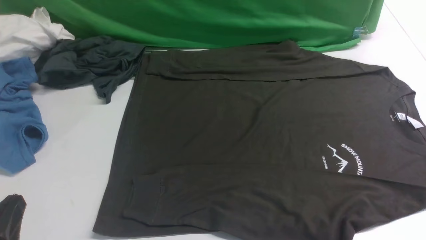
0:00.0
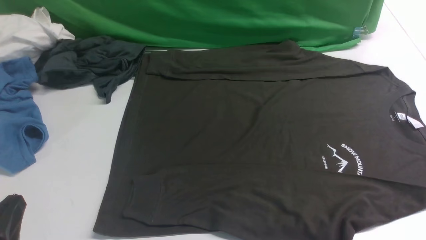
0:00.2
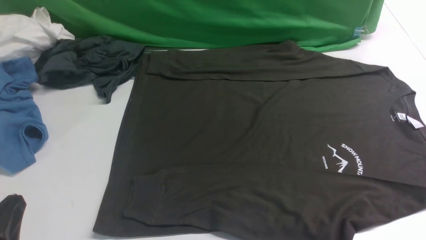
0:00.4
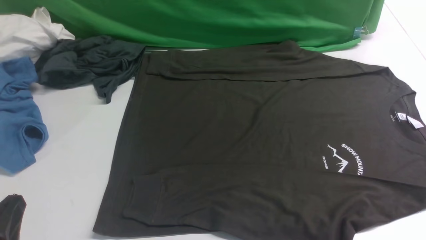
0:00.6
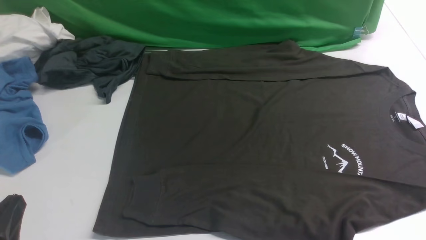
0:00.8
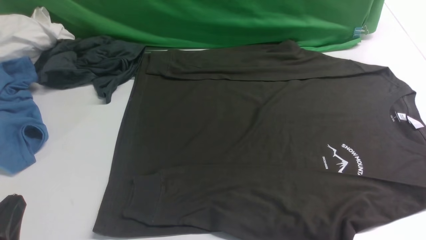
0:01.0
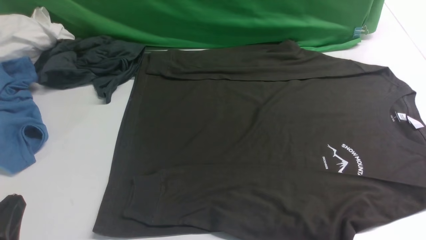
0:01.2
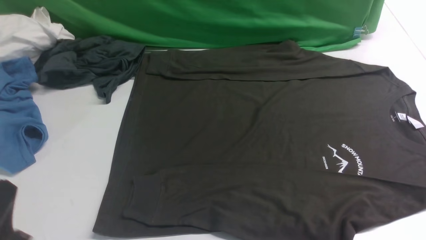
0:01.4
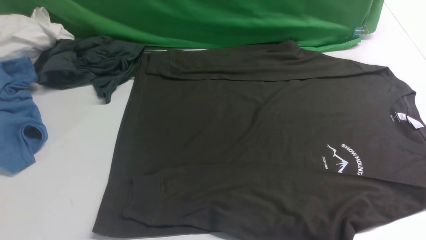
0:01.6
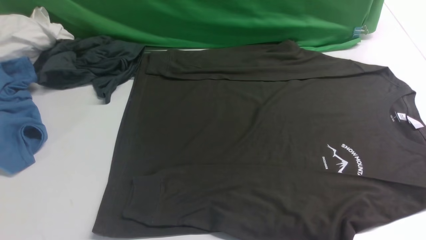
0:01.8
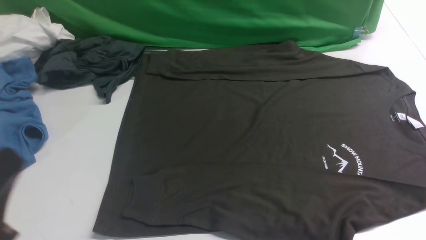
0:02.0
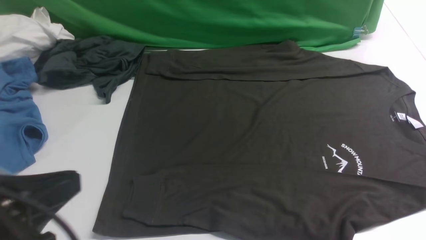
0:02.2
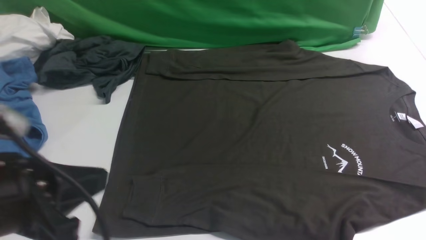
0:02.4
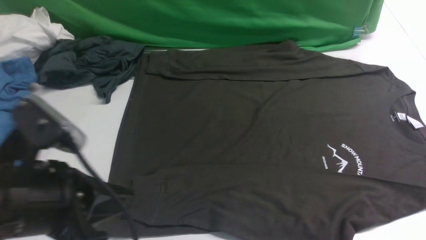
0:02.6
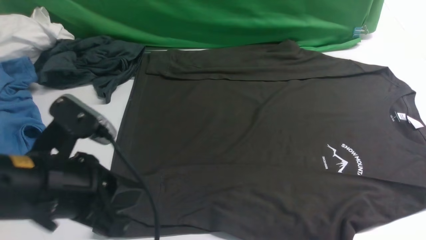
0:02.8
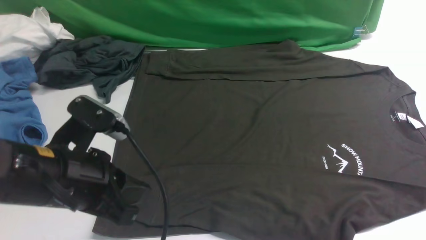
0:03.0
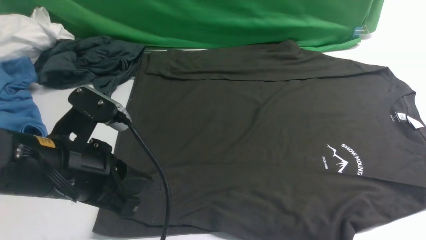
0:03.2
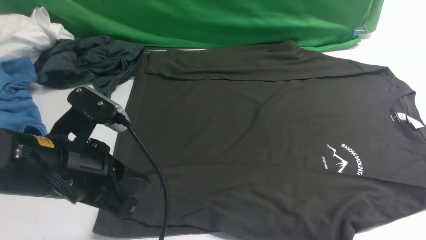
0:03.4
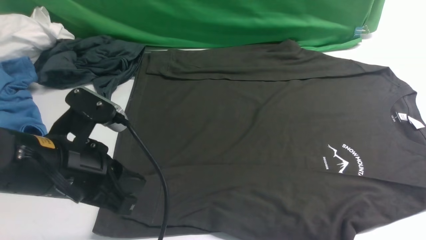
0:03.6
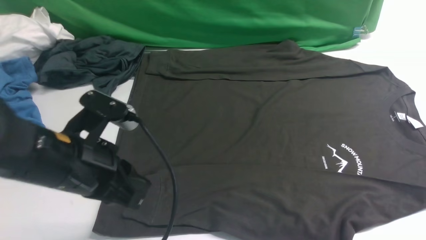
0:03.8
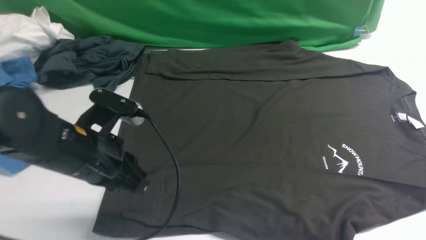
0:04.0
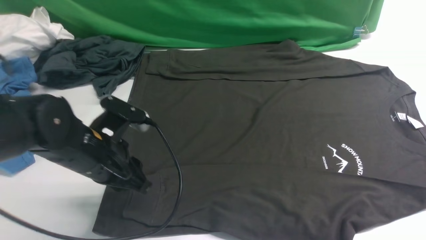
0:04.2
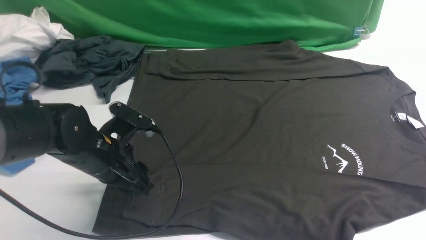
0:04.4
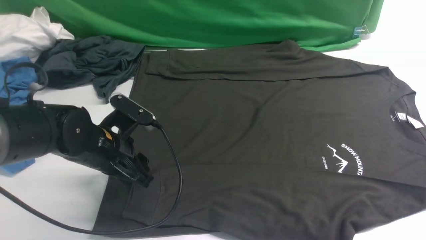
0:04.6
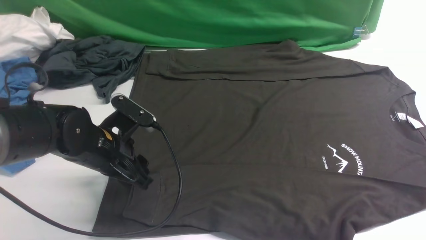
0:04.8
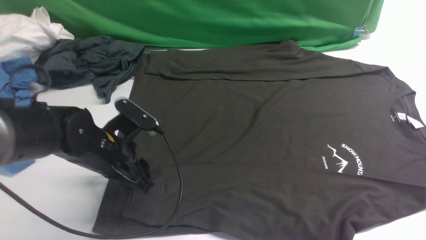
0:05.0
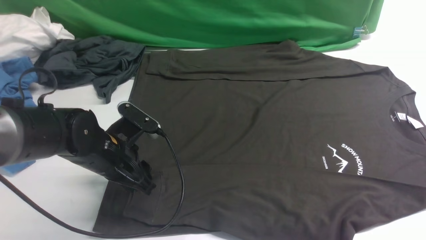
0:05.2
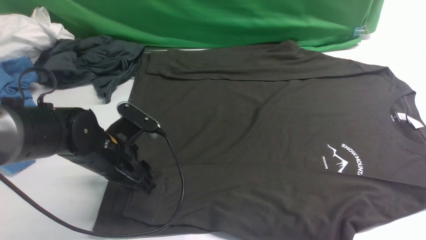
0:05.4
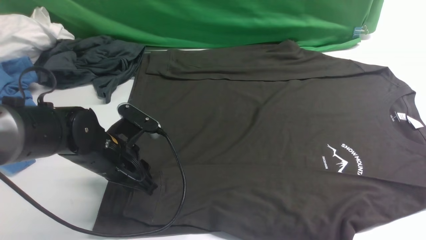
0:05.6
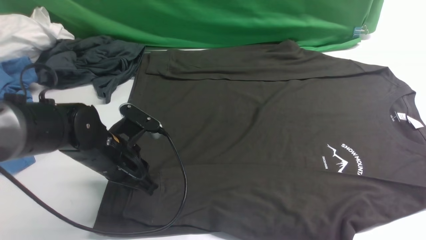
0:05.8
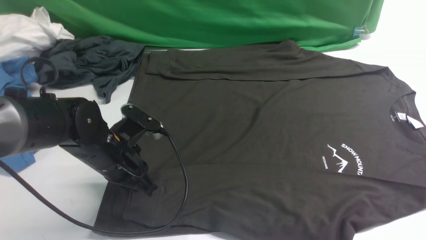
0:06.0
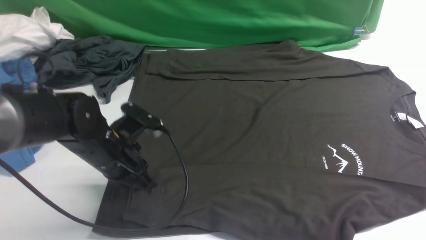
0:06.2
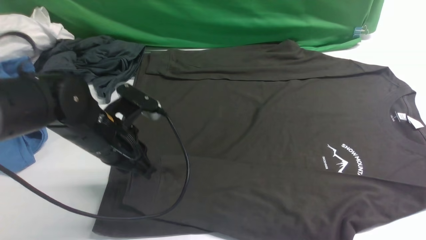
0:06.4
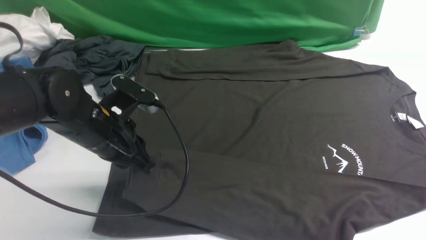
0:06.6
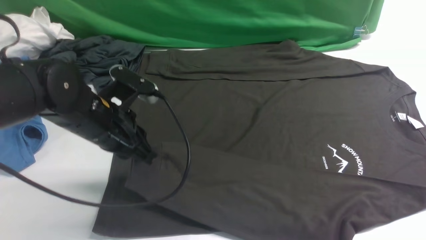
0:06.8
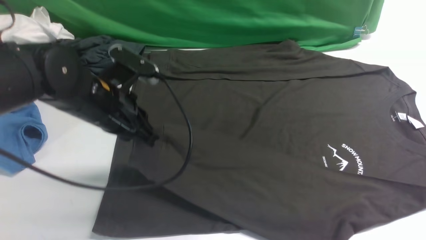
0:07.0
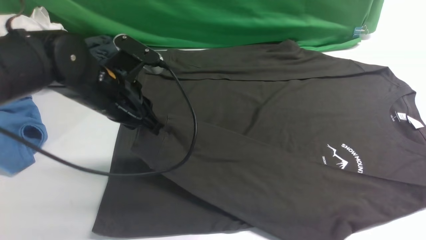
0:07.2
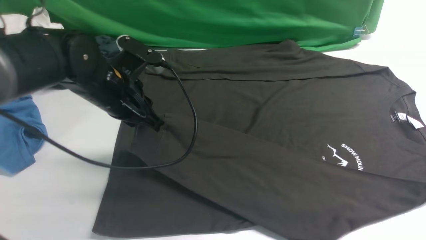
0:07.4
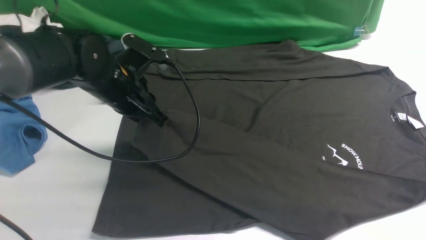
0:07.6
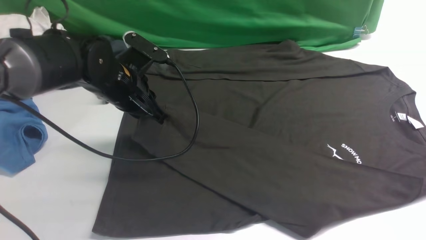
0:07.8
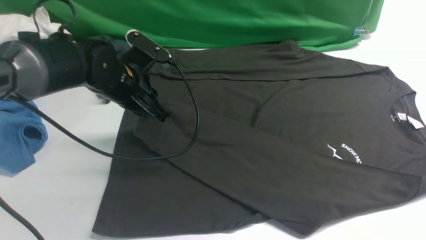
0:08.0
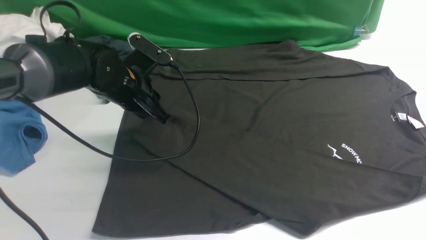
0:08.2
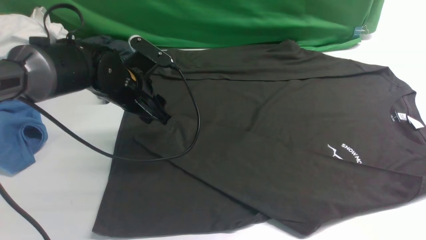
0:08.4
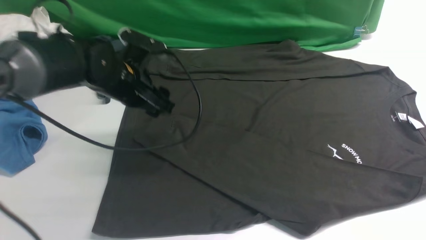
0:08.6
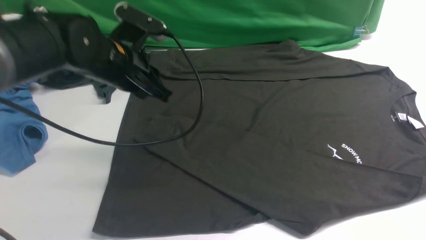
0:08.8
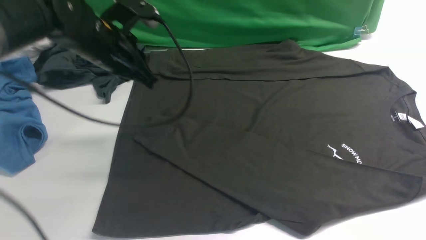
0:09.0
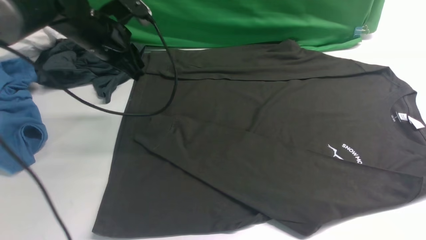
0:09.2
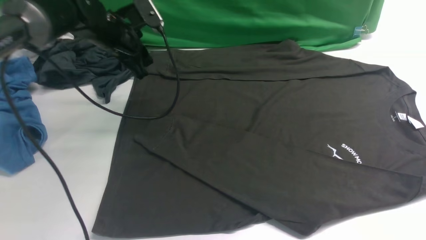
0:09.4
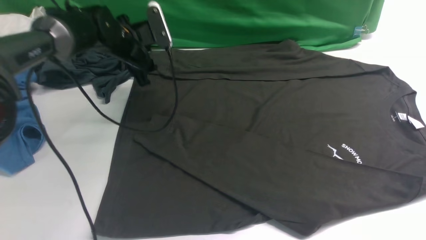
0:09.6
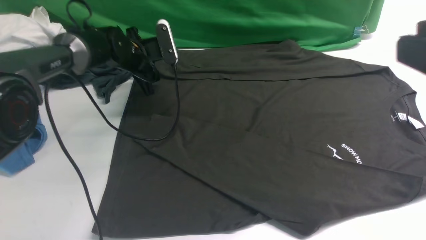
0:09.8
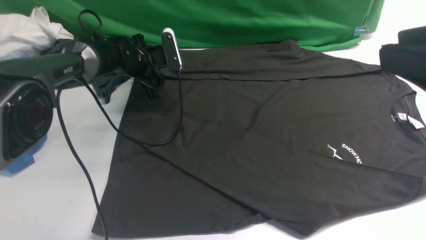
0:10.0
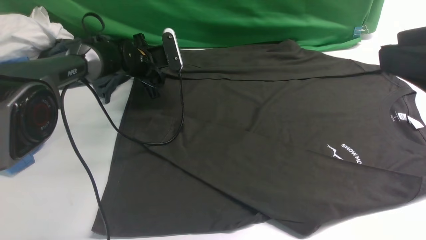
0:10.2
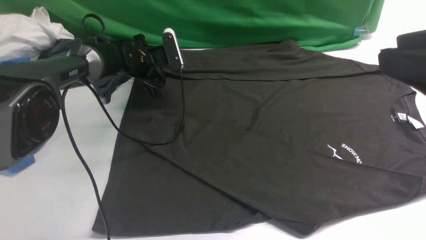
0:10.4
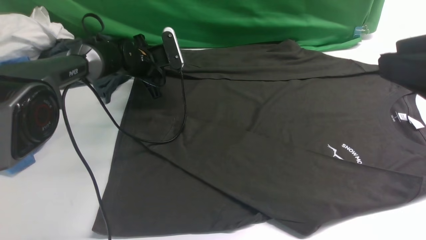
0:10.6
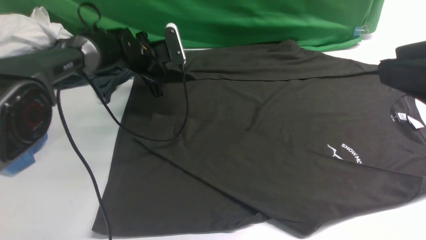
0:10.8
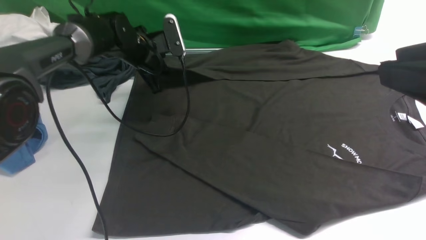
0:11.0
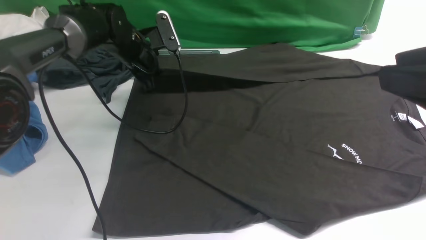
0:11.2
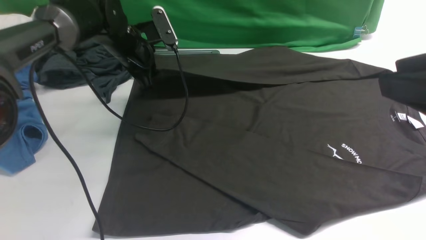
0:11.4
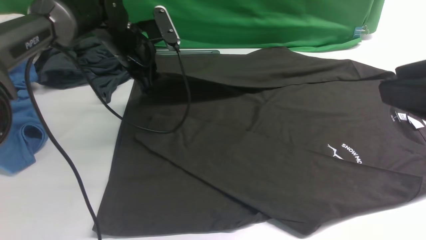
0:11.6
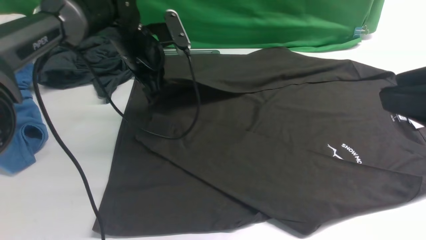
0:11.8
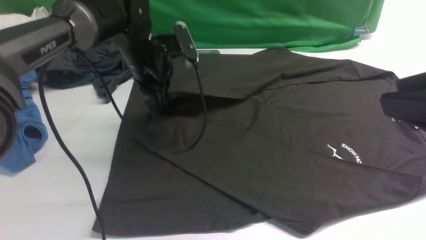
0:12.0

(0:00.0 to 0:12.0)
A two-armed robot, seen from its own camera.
Step, 0:00.0 - 0:06.4: use the left arm to clamp the cuff closest to it.
Step, 0:06.6 - 0:08.6: use the left arm to drag and place the cuff at the centered position on the left edge of the fabric.
Step, 0:08.8 - 0:10.8: use the left arm to clamp the cuff farthest from it.
0:01.6 - 0:03.0: The left gripper shifts roughly 15 cm forward and to the right.
0:03.0 - 0:04.4: The left gripper moves forward and downward, roughly 15 cm, and opens up.
0:04.4 - 0:06.0: The left gripper closes its fingers.
0:06.0 - 0:07.6: The left gripper shifts about 10 cm forward and upward.
0:07.6 - 0:09.0: The left gripper ends up roughly 5 cm from where it was, and opens, then closes again.
0:09.0 - 0:10.4: The left gripper goes about 20 cm downward and forward, and opens, then closes once more. Meanwhile the right gripper moves forward, about 5 cm.
0:10.4 - 0:12.0: The left gripper is displaced upward and backward by some 15 cm, and closes up.

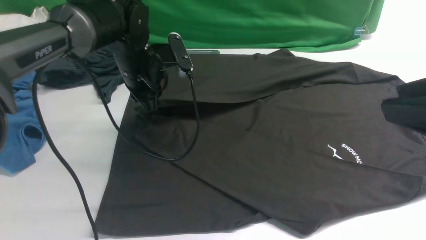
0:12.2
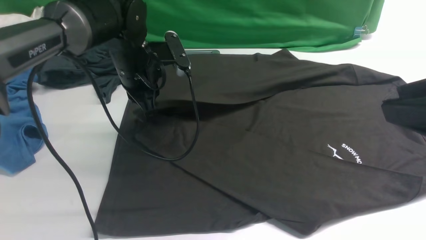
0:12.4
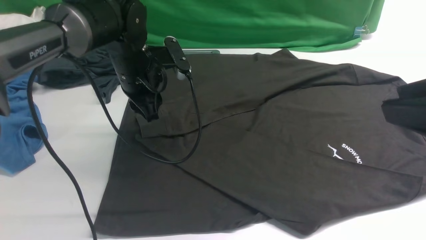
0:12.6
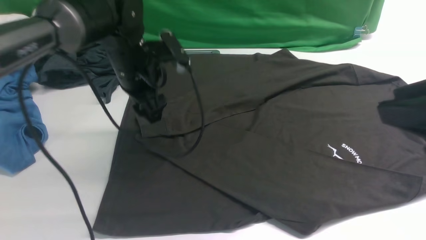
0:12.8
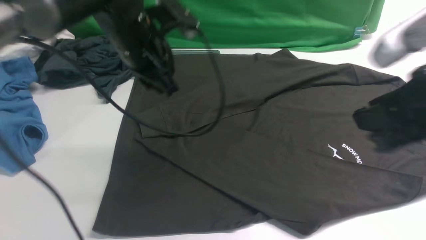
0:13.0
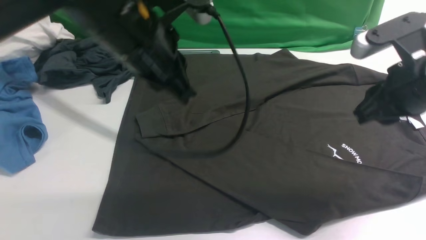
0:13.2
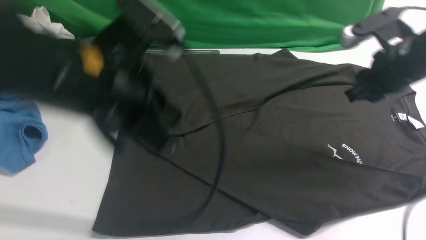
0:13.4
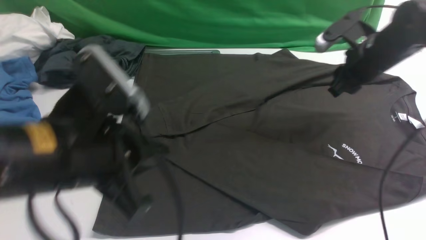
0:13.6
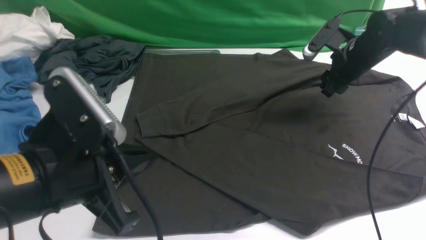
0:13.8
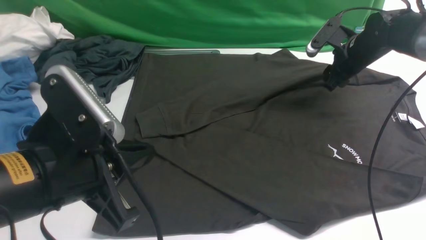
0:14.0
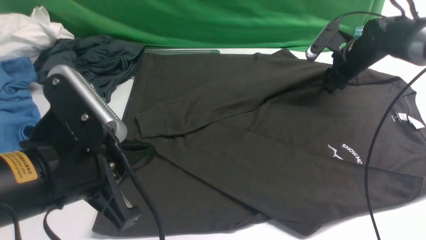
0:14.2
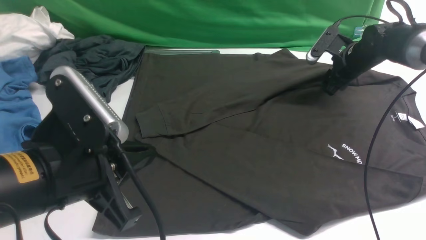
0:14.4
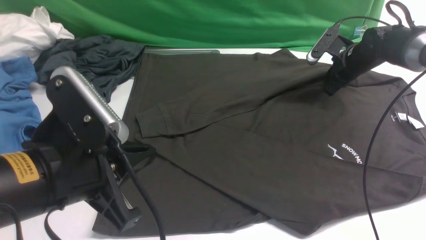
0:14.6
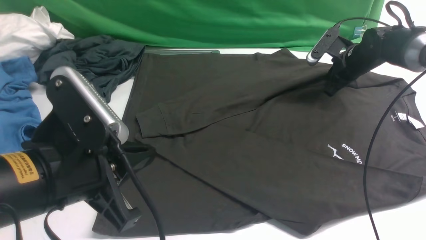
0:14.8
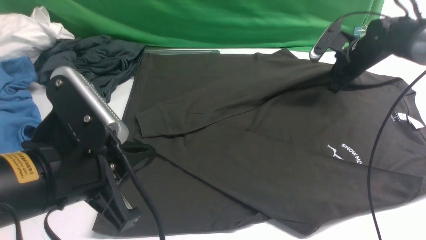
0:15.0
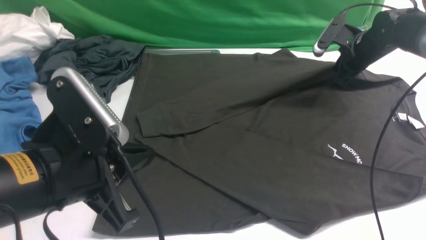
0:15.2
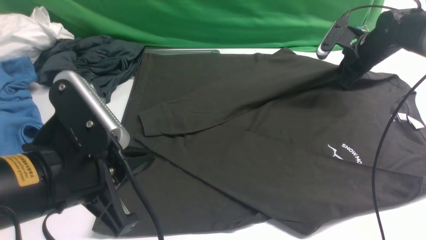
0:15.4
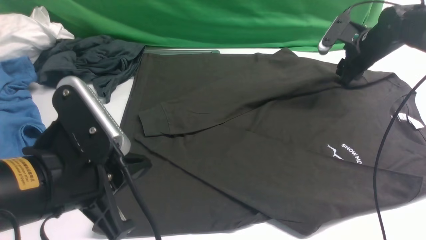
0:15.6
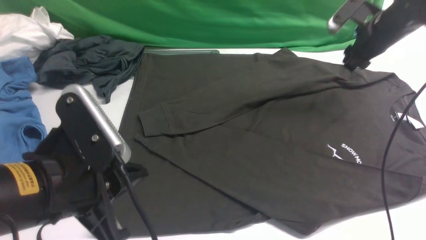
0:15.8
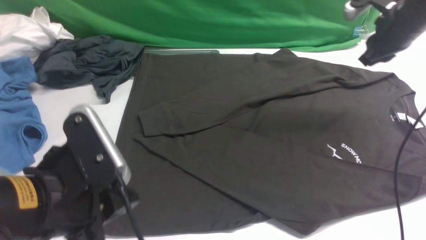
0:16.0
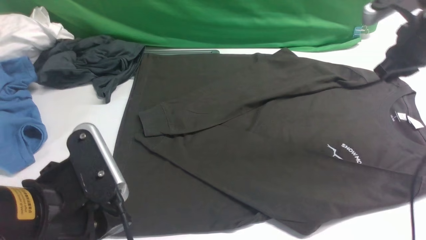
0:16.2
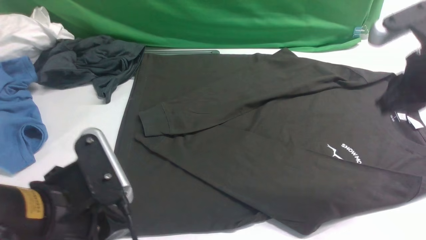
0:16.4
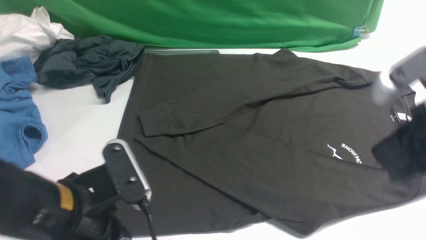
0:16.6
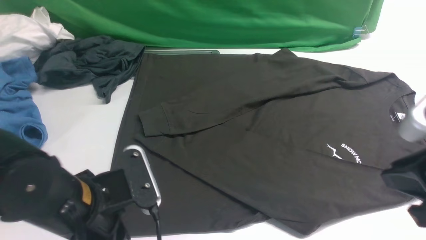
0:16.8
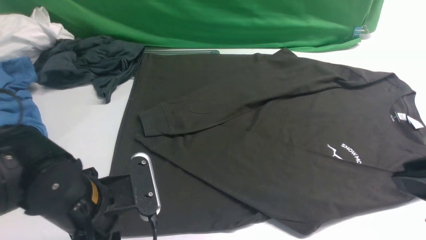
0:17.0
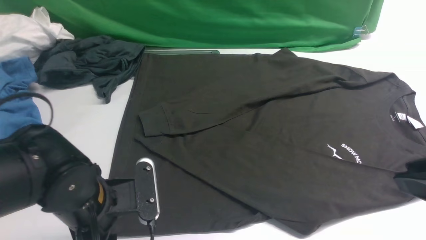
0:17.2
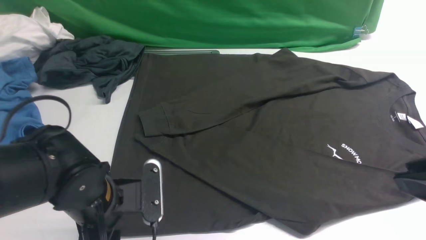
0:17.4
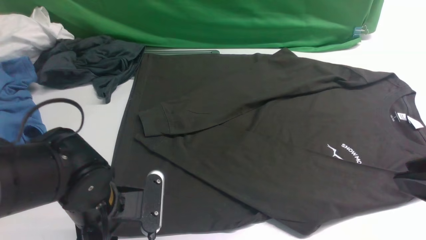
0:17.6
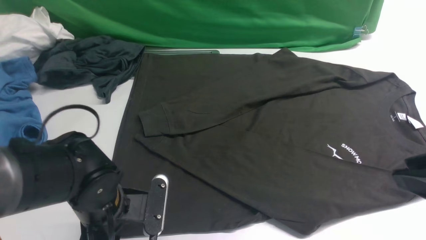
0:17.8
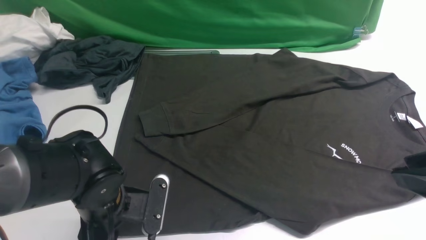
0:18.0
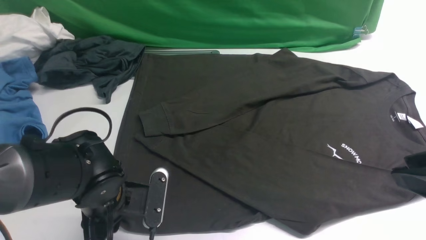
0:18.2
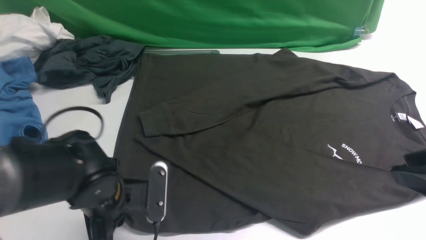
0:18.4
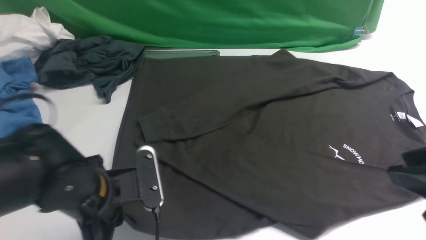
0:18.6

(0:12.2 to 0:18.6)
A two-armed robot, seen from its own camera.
0:12.2 - 0:13.8: The right gripper is displaced forward and downward by about 40 cm. Meanwhile the left gripper goes about 25 cm backward, and opens, then closes again.
0:13.8 - 0:15.4: The right gripper shifts by approximately 5 cm, and closes up.
0:15.4 - 0:17.0: The right gripper goes approximately 35 cm backward, while the left gripper travels downward by approximately 10 cm, and opens up.
0:17.0 - 0:18.6: The left gripper closes its fingers.
